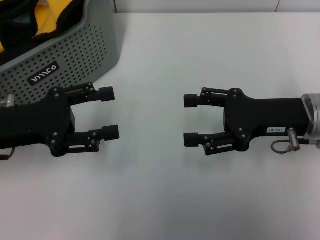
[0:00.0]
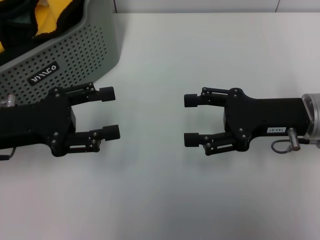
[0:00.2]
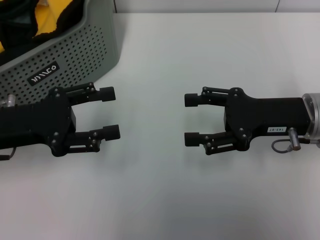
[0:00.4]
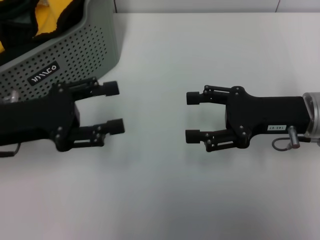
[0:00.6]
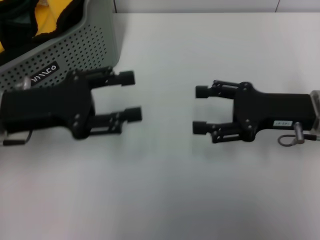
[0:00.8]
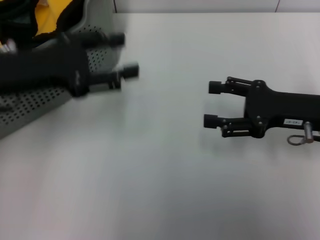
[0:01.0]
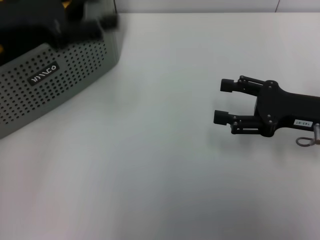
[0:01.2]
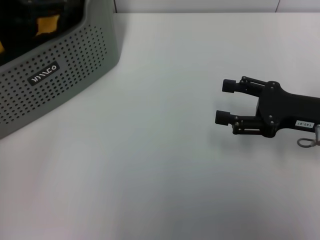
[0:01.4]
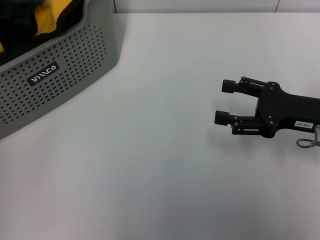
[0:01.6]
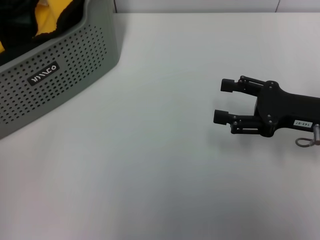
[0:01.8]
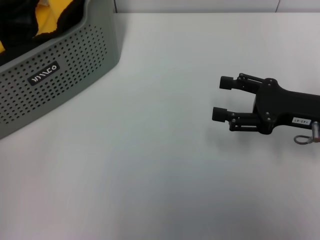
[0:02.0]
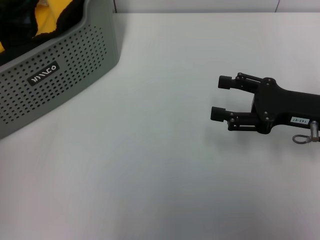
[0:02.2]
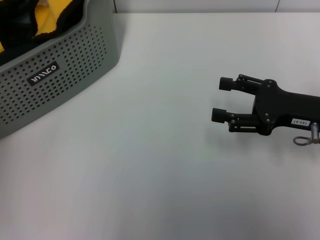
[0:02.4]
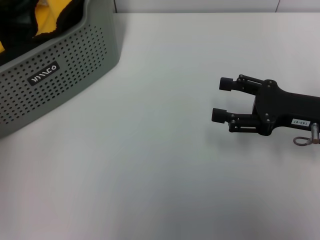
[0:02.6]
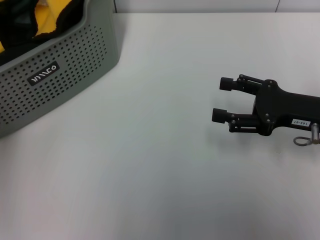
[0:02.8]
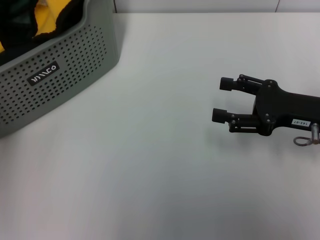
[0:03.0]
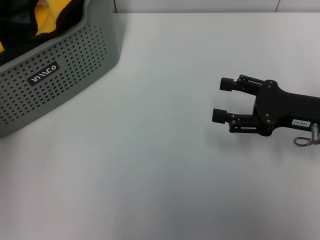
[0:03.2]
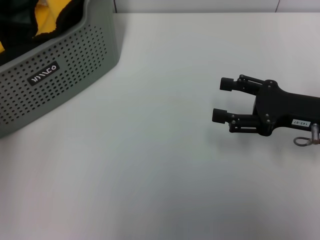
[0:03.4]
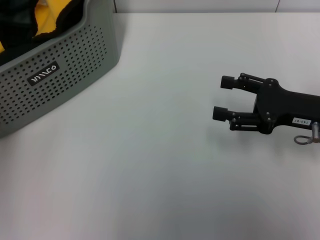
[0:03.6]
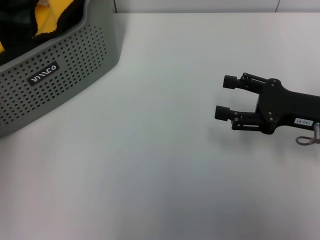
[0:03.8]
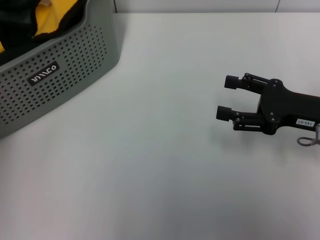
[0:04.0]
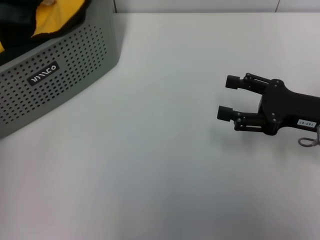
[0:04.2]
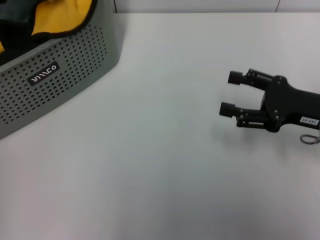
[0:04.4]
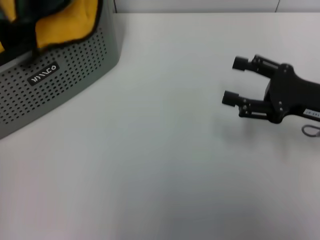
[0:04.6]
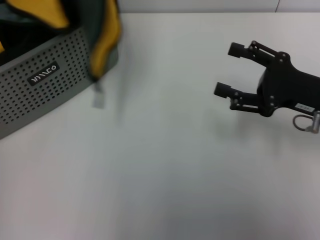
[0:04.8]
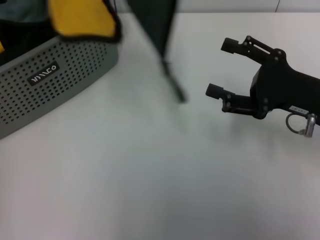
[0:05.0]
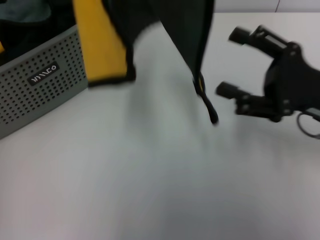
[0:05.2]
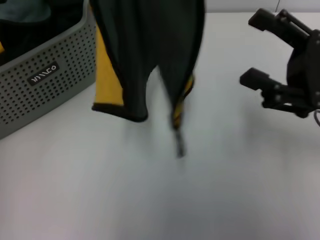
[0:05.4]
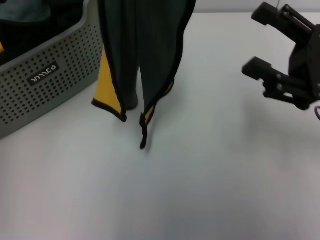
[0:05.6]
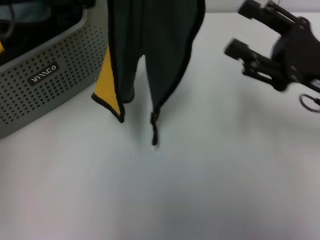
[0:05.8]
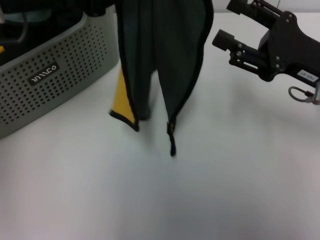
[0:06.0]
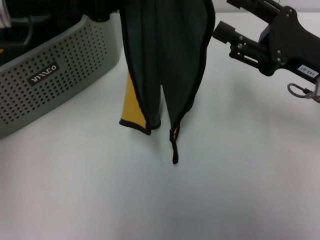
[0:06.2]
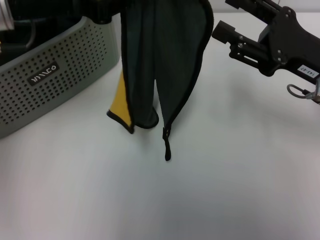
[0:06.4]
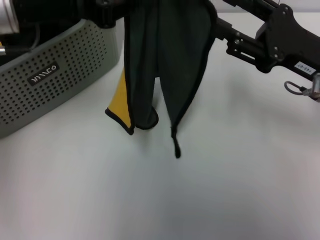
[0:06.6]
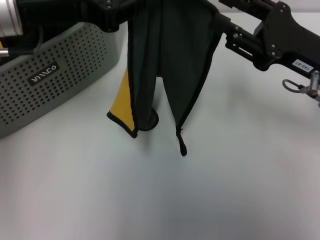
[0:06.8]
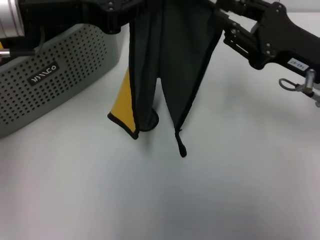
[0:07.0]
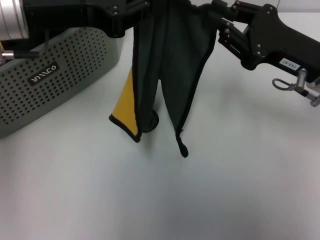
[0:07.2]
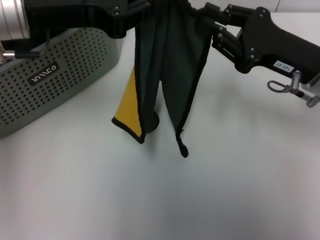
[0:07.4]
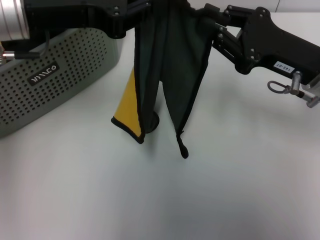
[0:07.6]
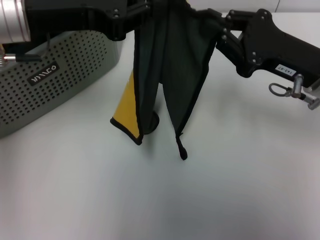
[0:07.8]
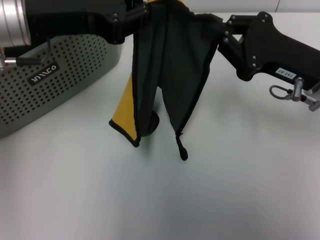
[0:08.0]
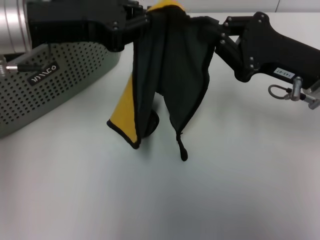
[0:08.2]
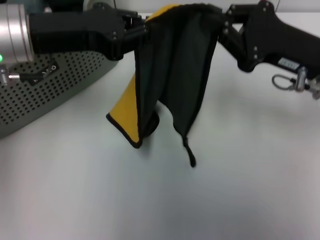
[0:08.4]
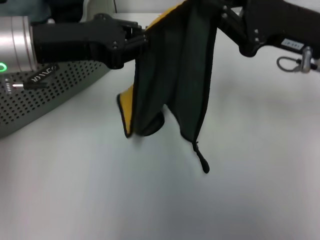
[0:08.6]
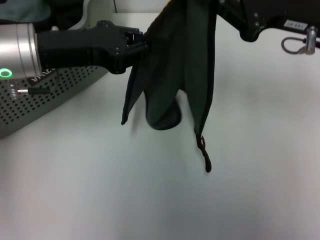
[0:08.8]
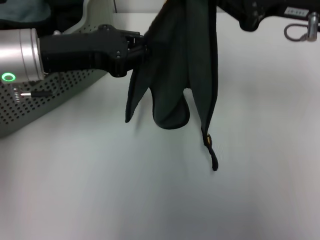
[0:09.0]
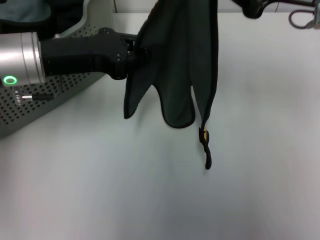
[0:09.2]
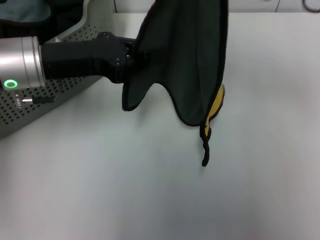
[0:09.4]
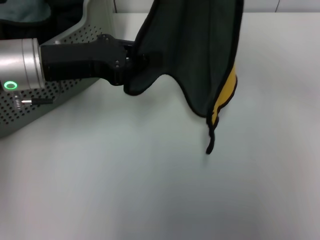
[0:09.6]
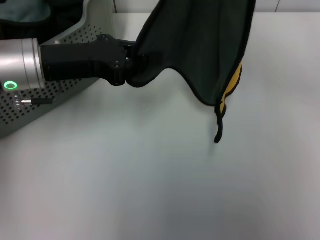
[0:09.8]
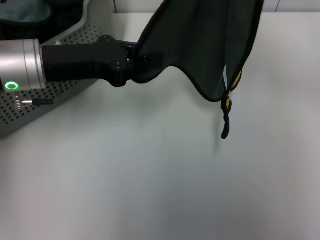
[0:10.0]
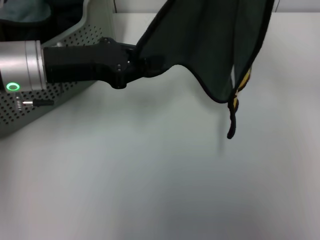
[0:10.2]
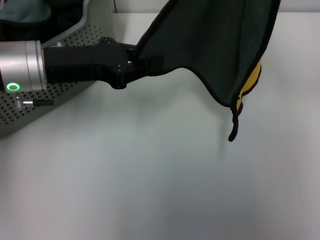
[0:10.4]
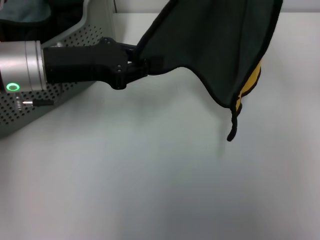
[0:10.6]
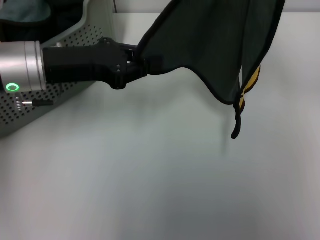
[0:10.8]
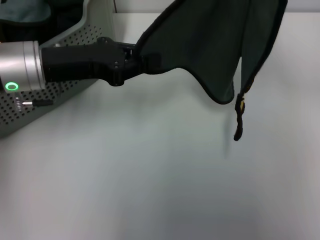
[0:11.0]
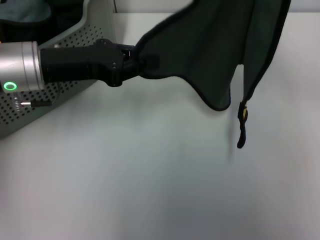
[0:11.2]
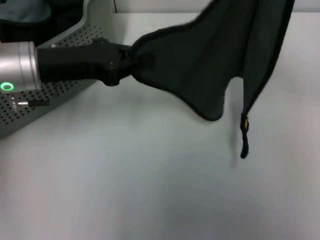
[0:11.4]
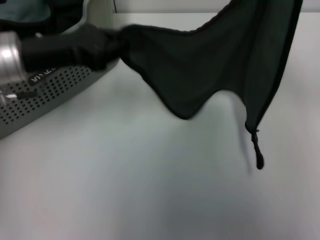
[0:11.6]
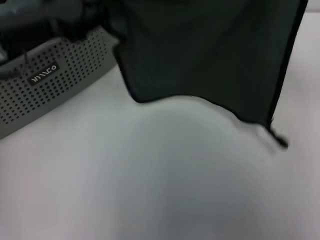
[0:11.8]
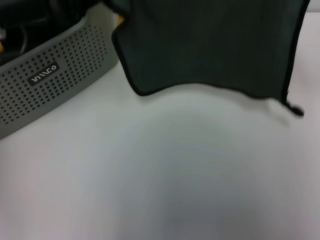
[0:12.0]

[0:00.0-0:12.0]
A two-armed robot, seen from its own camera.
Task of the whole recording: pick up the towel from the storage box and lay it flat on the table.
Step, 0:00.0 to 0:03.6: Pick up a towel with the left gripper.
Step, 0:03.8 to 0:07.4: Spread the towel flat with the left gripper.
0:00.0 to 0:01.6: The left gripper heads upward, covering roughly 15 cm.
0:01.6 to 0:03.0: The left gripper shifts by some 5 cm.
0:03.0 to 0:04.4: The left gripper travels upward by approximately 5 cm, and closes its fingers.
0:04.4 to 0:06.0: The left gripper shifts some 10 cm to the right.
0:06.0 to 0:07.6: The right gripper closes its fingers.
0:07.6 to 0:09.0: The left gripper goes roughly 5 cm downward. The right gripper shifts approximately 10 cm upward.
0:09.0 to 0:10.4: The right gripper goes roughly 10 cm to the right and upward.
0:10.4 to 0:12.0: The left gripper ends up some 5 cm from where it was. Meanwhile the right gripper changes place by about 5 cm.

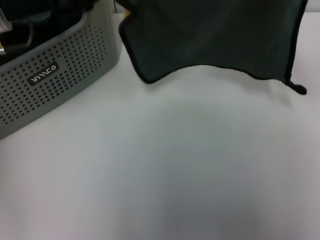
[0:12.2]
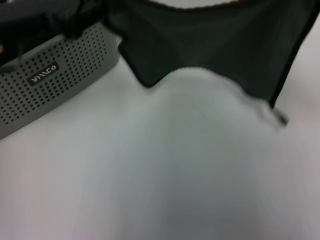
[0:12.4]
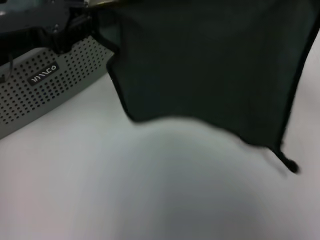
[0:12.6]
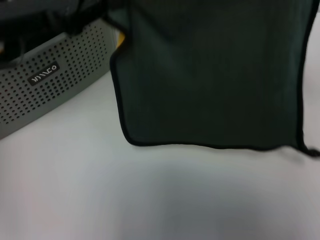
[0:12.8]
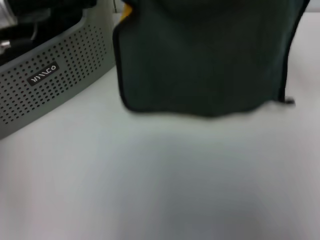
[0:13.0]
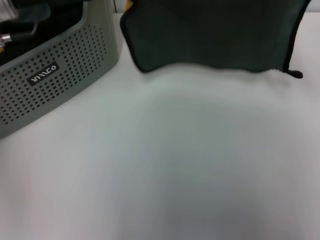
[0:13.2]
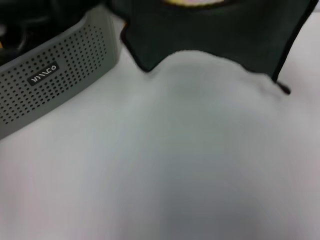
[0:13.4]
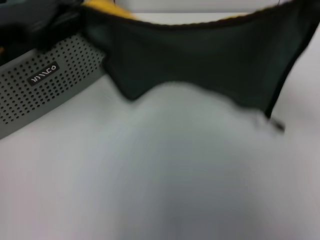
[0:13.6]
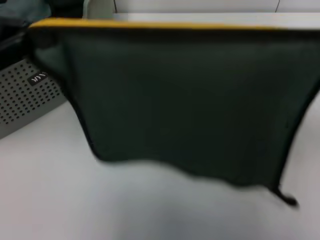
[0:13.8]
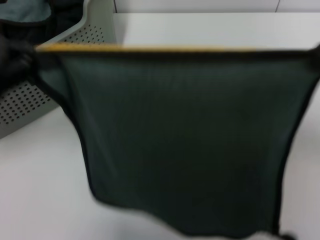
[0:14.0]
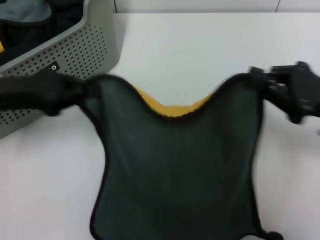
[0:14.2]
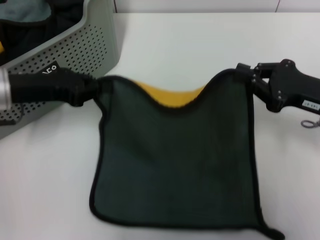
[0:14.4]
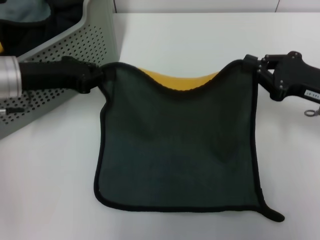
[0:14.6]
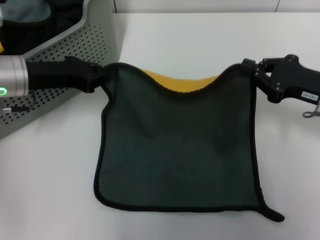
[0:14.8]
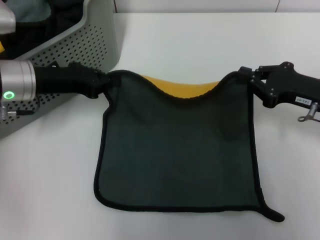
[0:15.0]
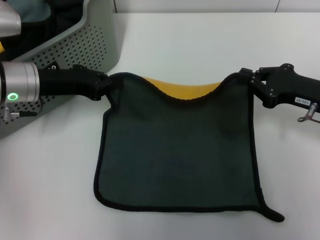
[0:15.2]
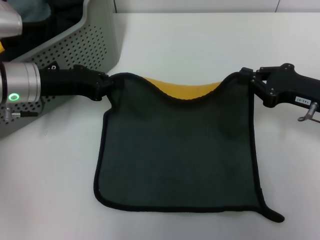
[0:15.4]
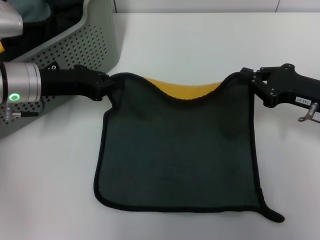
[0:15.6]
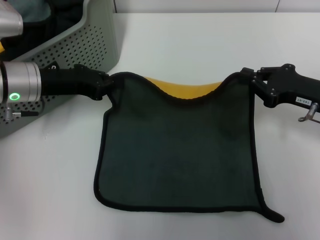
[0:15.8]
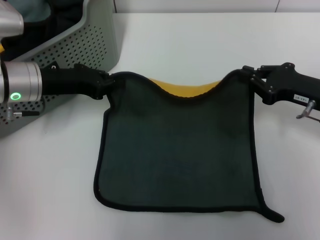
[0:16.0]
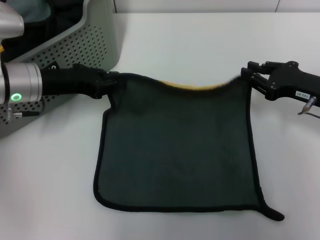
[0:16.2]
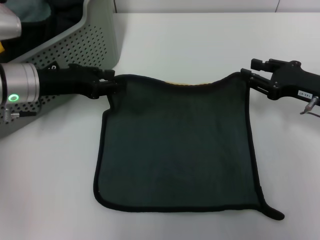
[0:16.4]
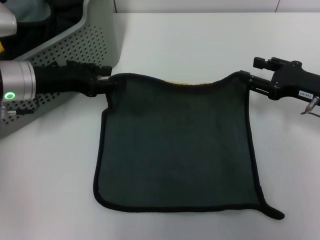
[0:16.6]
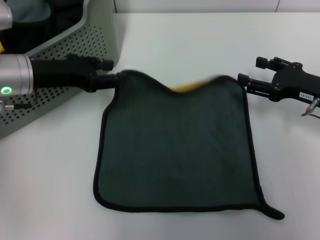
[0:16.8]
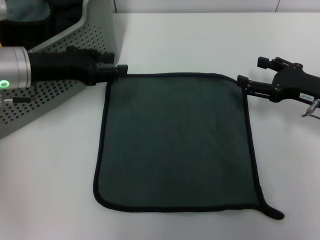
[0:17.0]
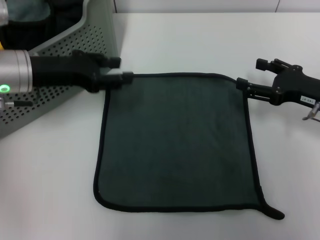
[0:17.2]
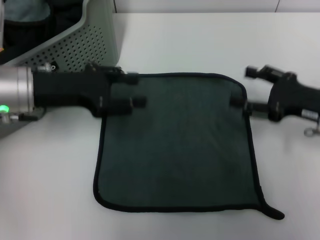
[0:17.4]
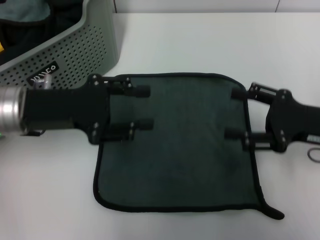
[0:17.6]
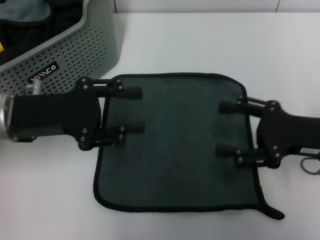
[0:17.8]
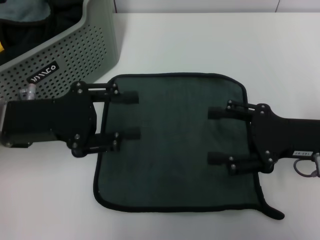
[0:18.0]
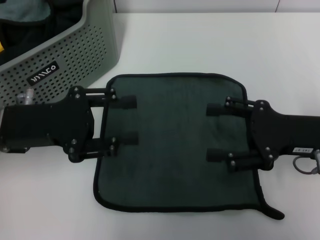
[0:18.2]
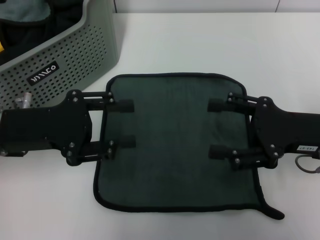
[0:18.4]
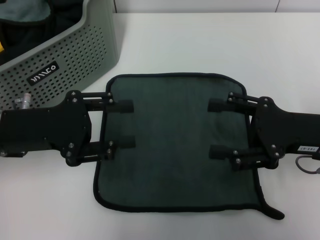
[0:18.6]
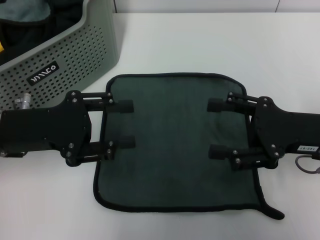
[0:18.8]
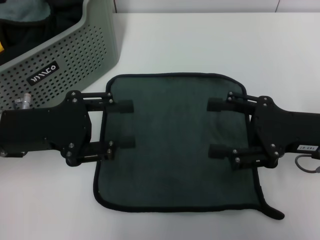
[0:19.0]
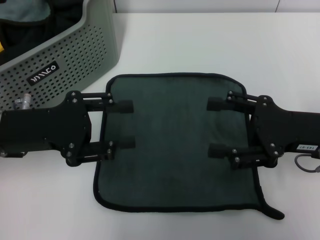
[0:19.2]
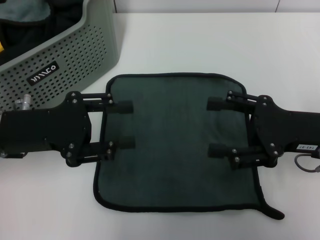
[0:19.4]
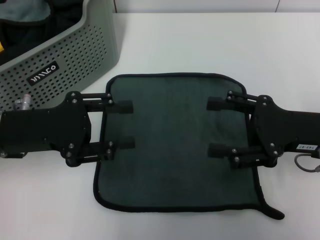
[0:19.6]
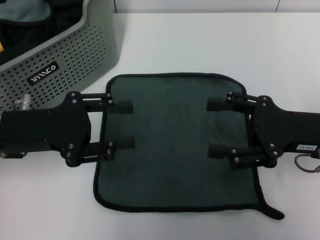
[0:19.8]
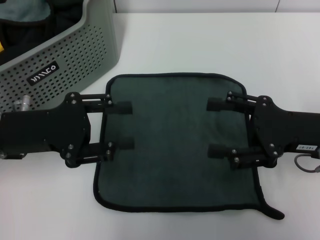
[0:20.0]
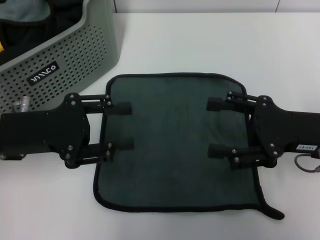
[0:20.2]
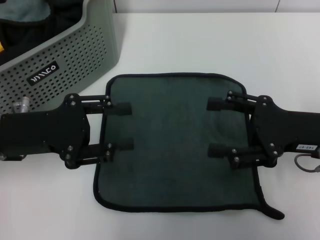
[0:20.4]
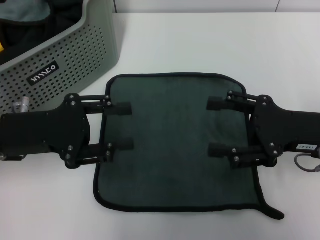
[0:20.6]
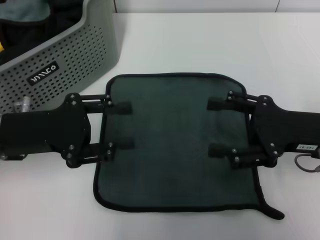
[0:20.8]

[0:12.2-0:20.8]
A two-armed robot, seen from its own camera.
Task of the whole recording: pick up the towel from the storage box and lay it flat on the table.
Step, 0:12.2 to 0:16.4: Spread the towel flat with the right gripper.
0:12.2 to 0:13.6: The left gripper shifts by some 5 cm; the right gripper moves some 5 cm.
0:13.6 to 0:15.0: Both grippers move downward, approximately 10 cm.
0:15.0 to 0:16.6: The right gripper opens; the left gripper opens its fingers.
0:16.6 to 0:18.0: Both grippers travel together backward, approximately 5 cm. The right gripper opens its fingers.
0:18.0 to 0:19.4: Neither gripper changes place.
0:19.4 to 0:20.8: The two grippers keep their place.

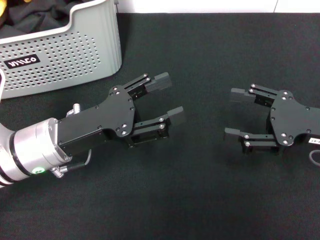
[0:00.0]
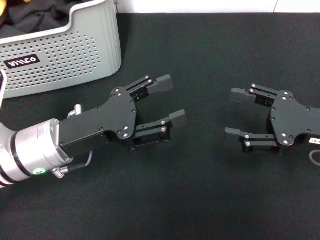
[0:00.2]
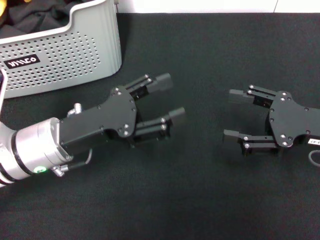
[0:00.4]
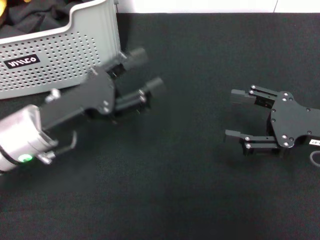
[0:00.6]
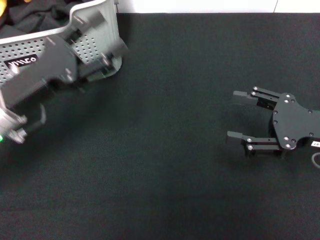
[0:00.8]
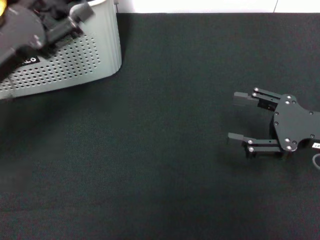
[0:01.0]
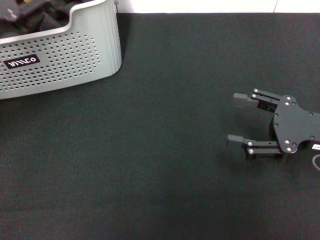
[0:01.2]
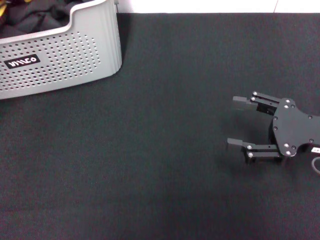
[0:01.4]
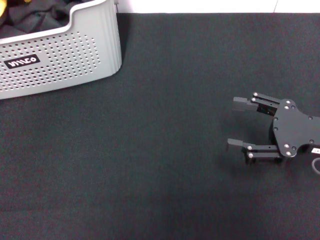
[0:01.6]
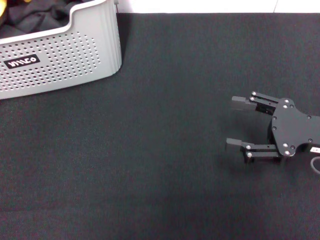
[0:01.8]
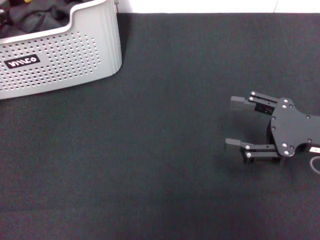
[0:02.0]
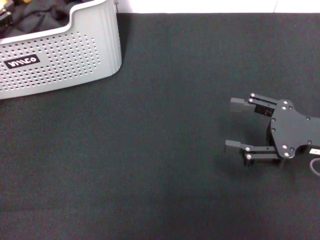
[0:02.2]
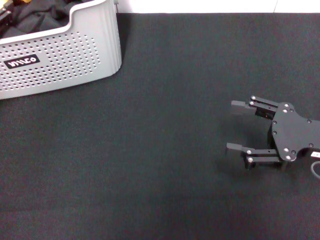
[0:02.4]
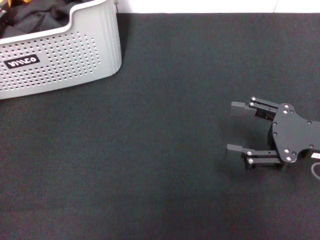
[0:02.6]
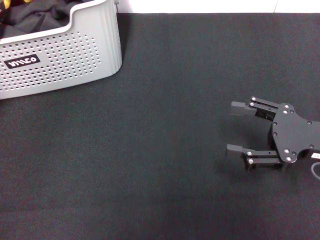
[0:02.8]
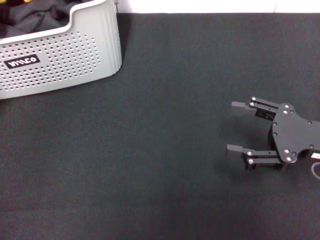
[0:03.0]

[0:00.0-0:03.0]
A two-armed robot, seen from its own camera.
Task of the whole recording: pick up the towel from the storage box and lay it flat on the black tablecloth.
Step, 0:00.0 to 0:03.0: Pick up a towel with the left gripper.
0:00.0 to 0:01.6: The left gripper shifts about 20 cm to the left and upward.
